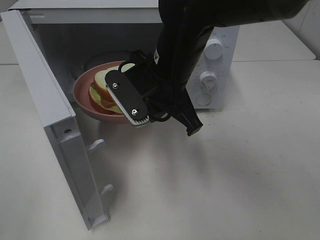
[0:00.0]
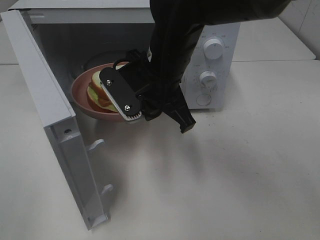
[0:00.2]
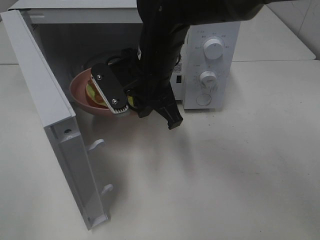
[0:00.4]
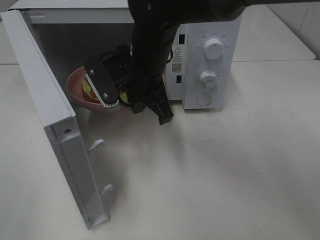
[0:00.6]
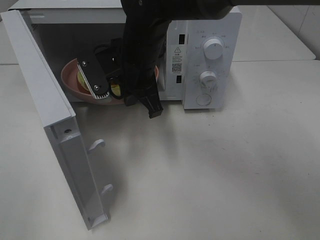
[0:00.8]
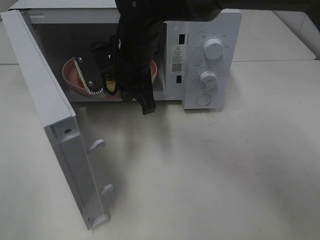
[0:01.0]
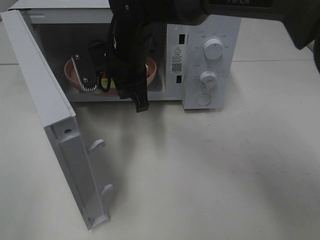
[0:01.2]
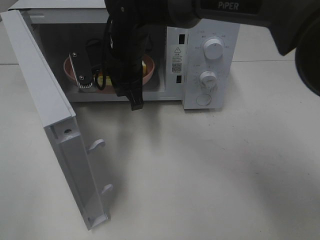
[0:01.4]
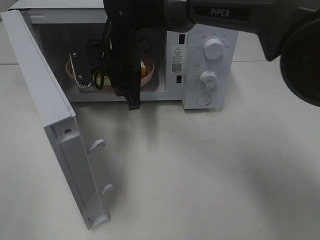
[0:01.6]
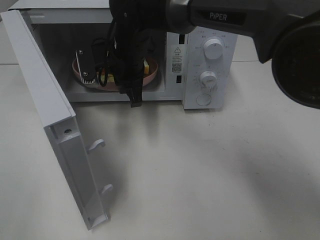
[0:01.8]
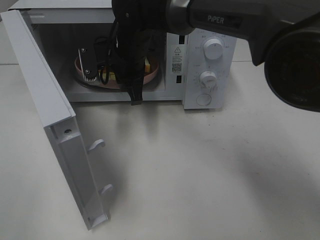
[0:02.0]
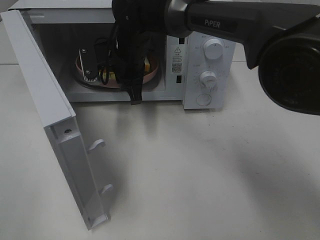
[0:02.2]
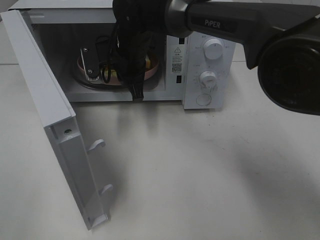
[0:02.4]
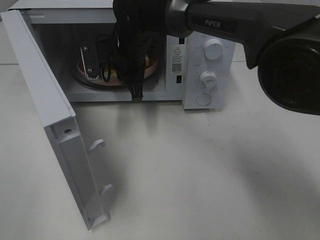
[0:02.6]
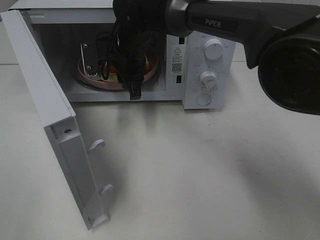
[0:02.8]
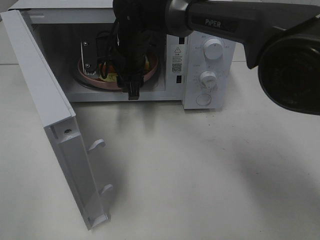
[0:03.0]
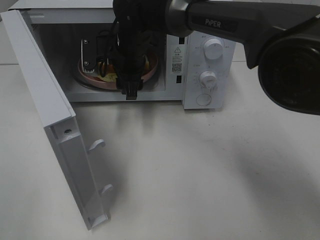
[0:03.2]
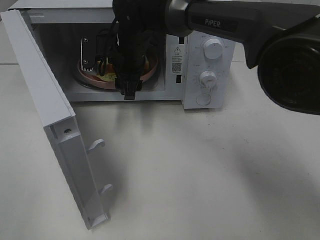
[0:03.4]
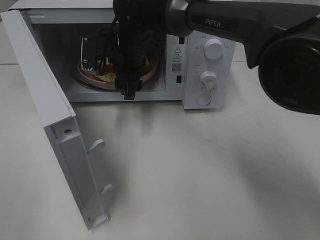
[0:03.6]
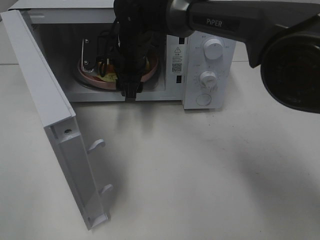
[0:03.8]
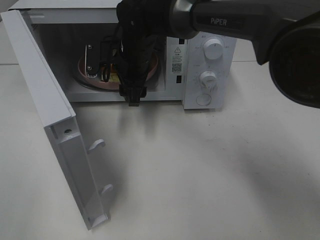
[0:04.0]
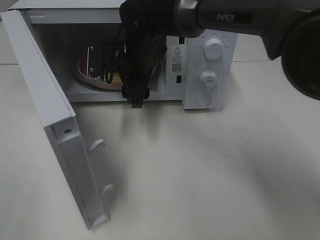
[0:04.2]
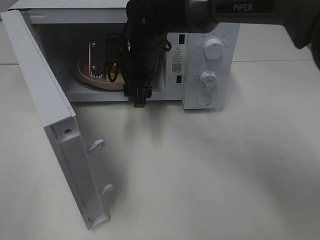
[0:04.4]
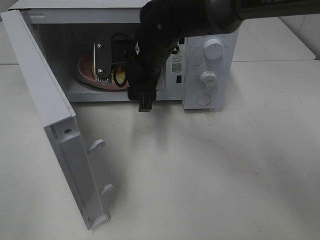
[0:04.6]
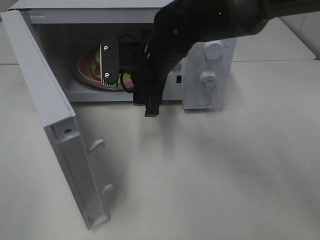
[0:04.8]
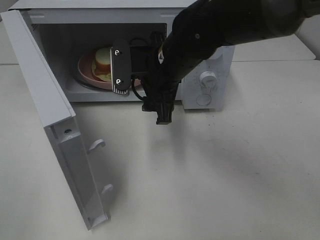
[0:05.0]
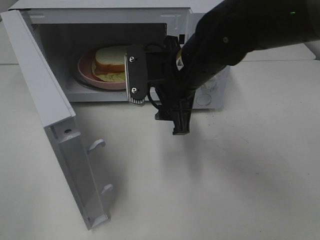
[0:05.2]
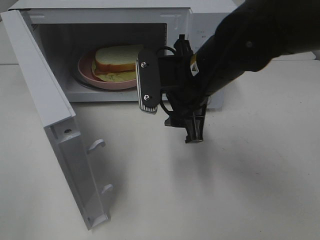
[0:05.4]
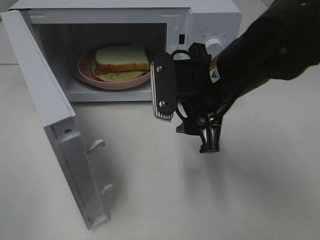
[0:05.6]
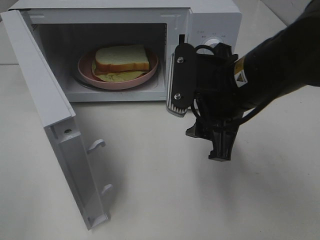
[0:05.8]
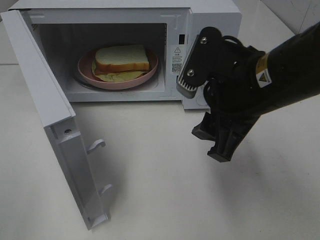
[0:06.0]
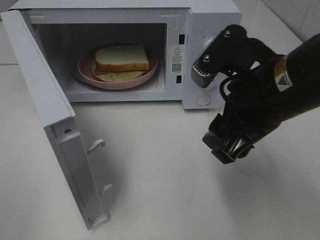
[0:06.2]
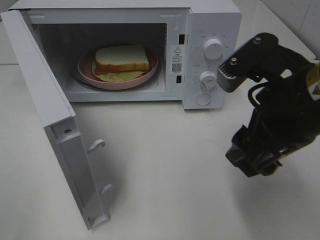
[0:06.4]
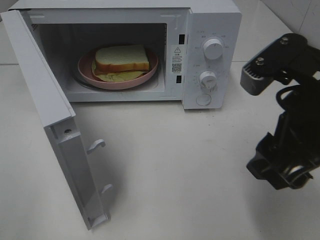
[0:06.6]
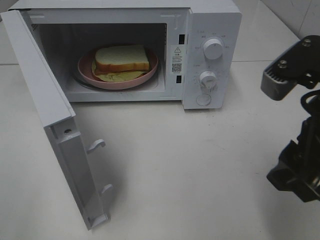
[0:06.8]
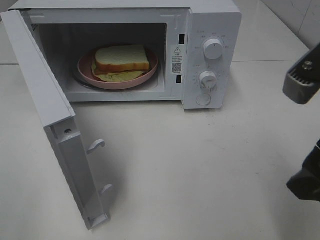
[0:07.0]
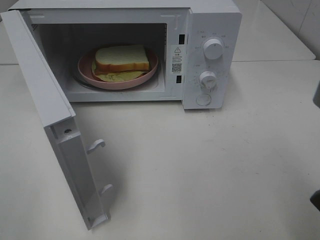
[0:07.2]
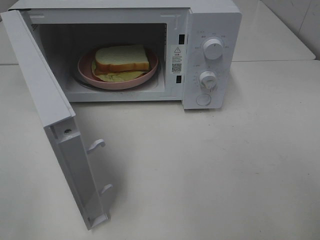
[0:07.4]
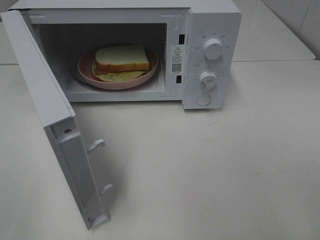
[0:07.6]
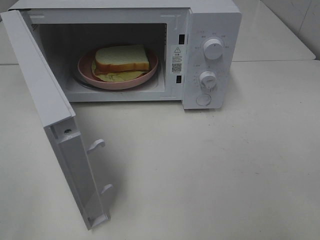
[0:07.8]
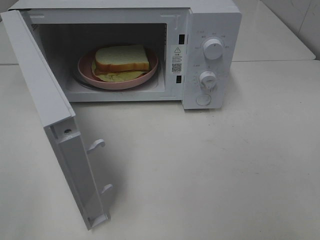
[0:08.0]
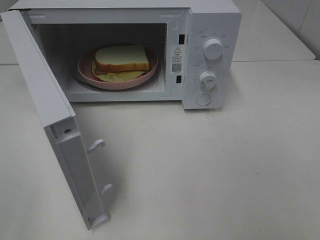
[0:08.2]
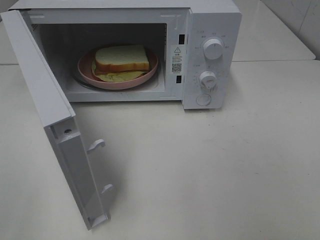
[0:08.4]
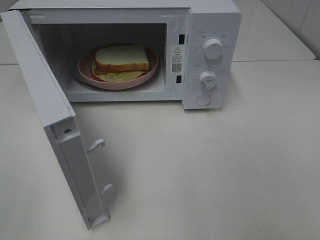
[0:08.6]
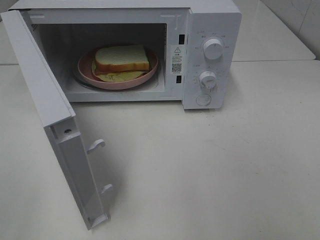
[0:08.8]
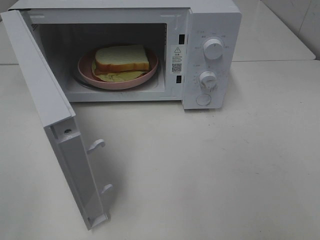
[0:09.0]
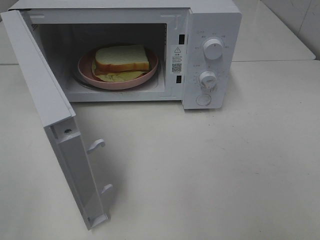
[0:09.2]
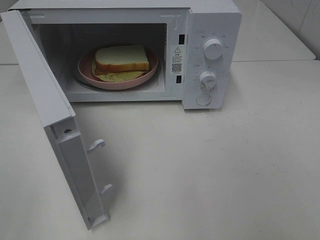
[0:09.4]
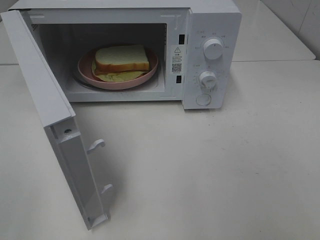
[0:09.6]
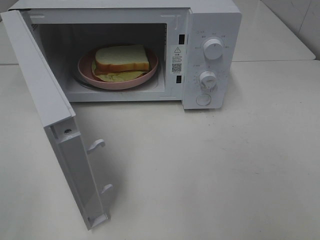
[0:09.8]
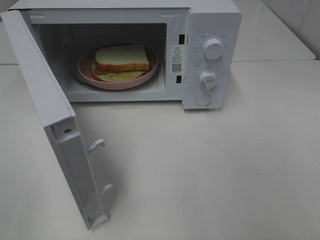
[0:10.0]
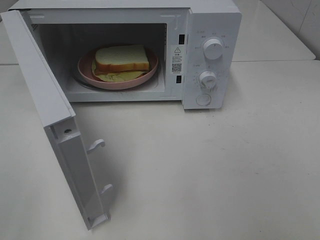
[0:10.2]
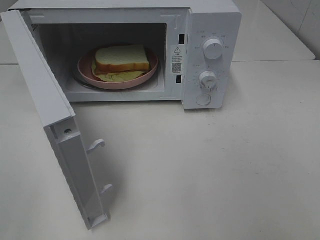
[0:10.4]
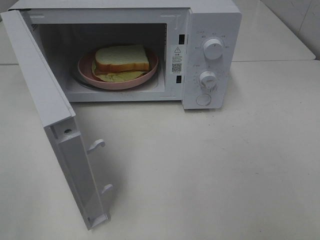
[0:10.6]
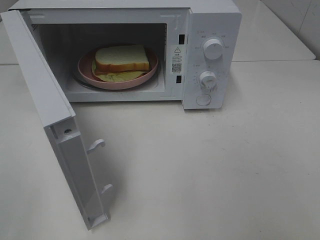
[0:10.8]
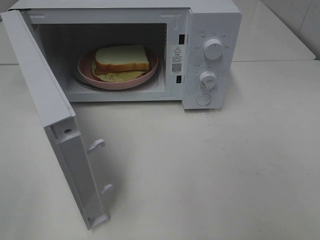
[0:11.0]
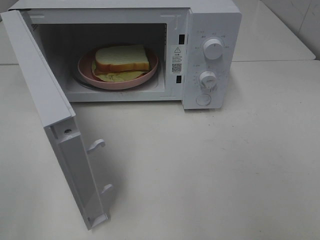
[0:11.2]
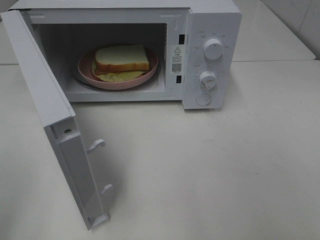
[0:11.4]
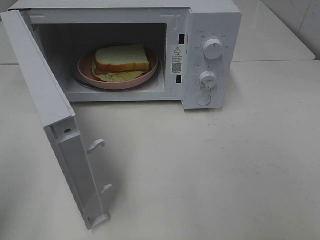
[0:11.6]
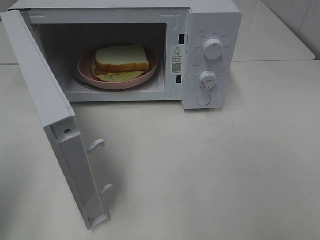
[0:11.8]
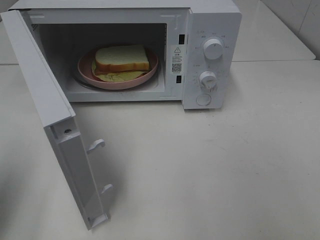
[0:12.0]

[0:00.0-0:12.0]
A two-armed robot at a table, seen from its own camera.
Task of the whole recording: Heat Sandwich.
Step, 0:00.0 to 0:03.8: Right hand: place the plate in the microwave.
0:00.0 to 0:01.6: The right gripper shifts roughly 10 cm forward and to the left.
0:01.6 to 0:03.0: The right gripper opens its fingers.
0:03.0 to 0:04.4: There are only small adjustments of the grippers.
0:04.4 to 0:06.0: The right gripper moves backward and to the right, approximately 25 cm.
0:06.0 to 0:07.6: The right gripper moves backward and to the right, some 20 cm.
0:09.0 to 0:10.4: Both grippers stay put.
0:10.4 to 0:12.0: The left gripper travels forward by some 15 cm, and closes up.

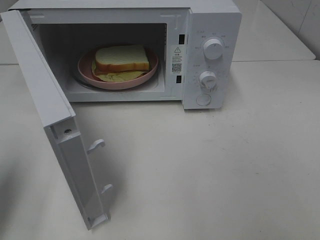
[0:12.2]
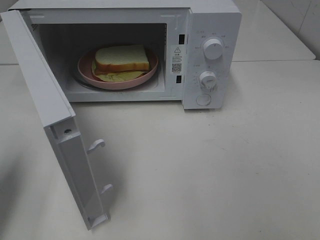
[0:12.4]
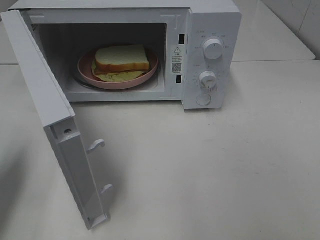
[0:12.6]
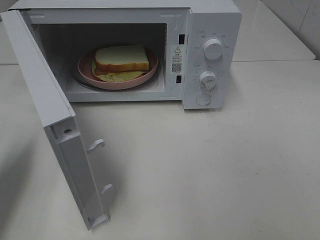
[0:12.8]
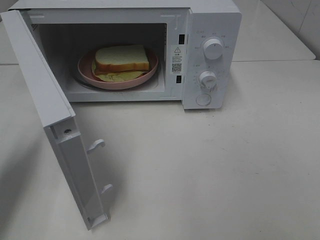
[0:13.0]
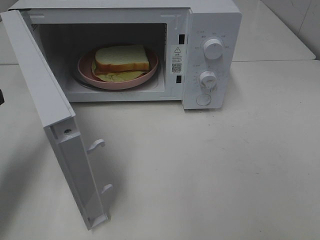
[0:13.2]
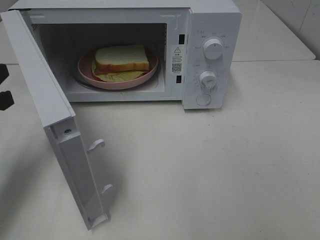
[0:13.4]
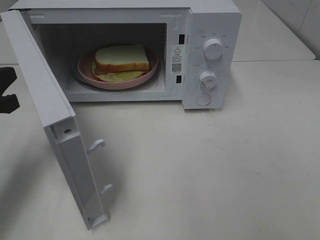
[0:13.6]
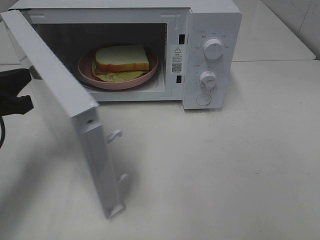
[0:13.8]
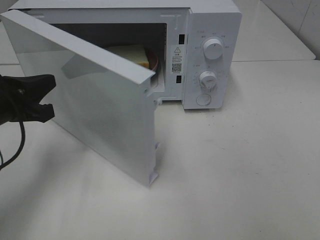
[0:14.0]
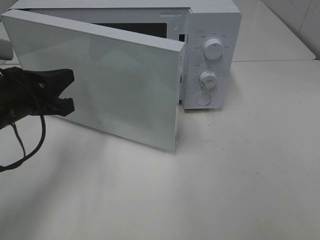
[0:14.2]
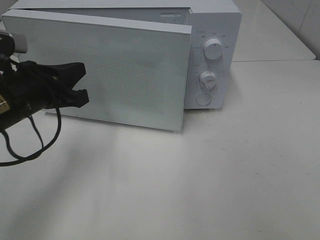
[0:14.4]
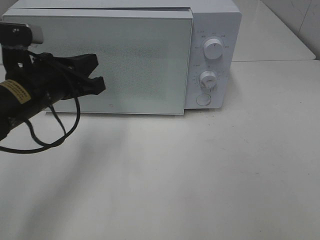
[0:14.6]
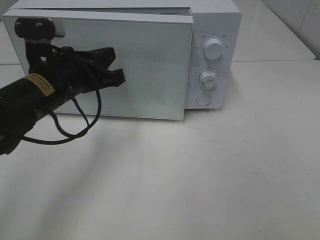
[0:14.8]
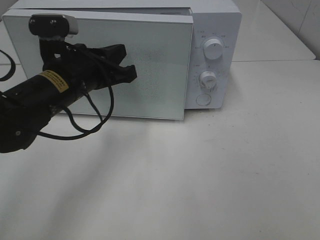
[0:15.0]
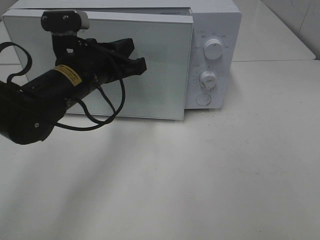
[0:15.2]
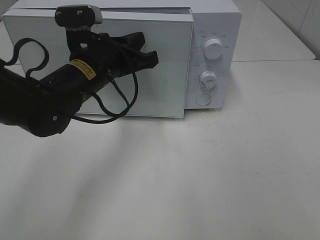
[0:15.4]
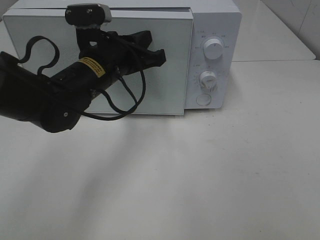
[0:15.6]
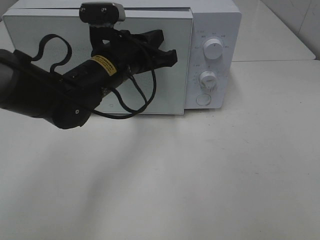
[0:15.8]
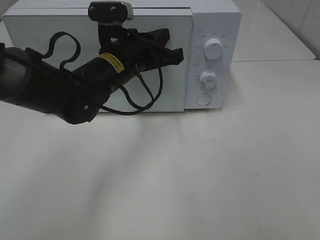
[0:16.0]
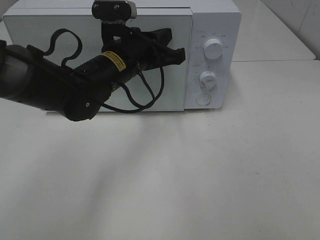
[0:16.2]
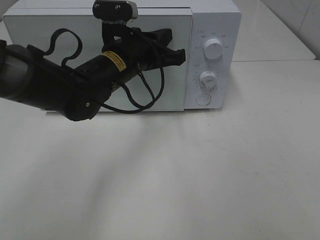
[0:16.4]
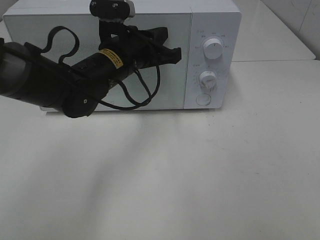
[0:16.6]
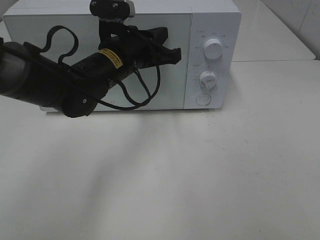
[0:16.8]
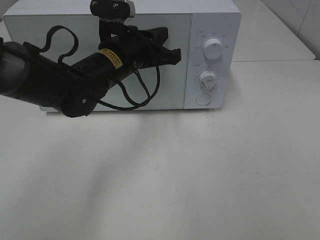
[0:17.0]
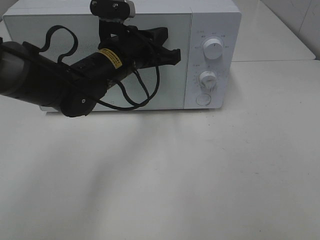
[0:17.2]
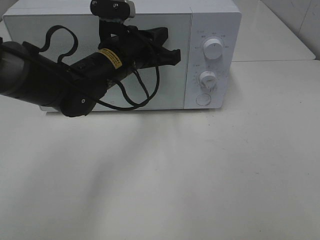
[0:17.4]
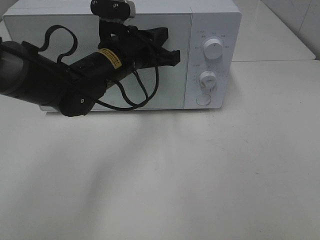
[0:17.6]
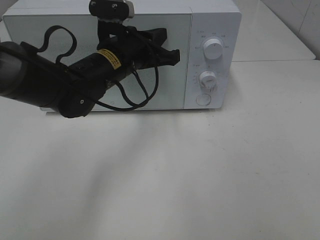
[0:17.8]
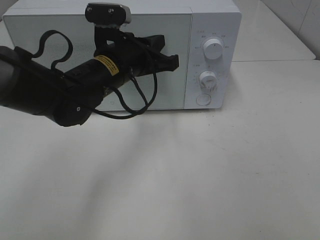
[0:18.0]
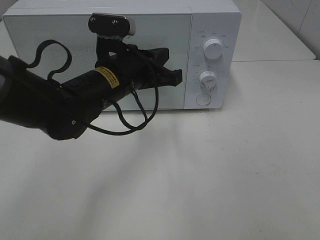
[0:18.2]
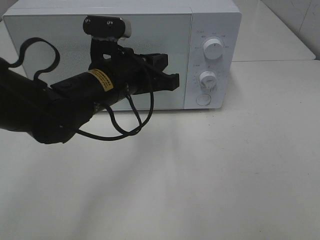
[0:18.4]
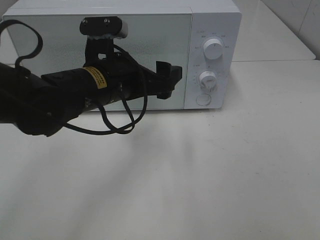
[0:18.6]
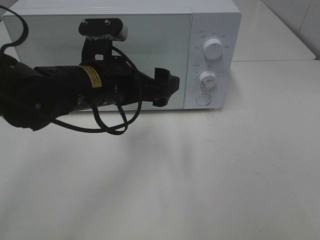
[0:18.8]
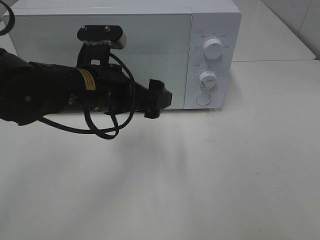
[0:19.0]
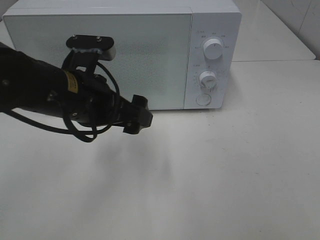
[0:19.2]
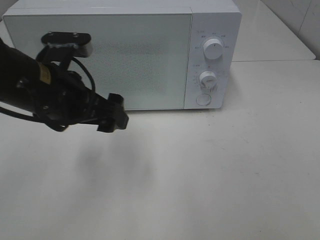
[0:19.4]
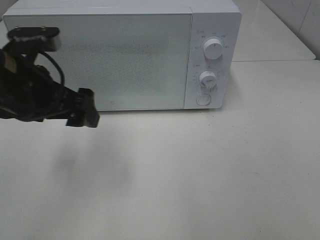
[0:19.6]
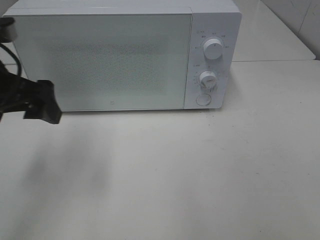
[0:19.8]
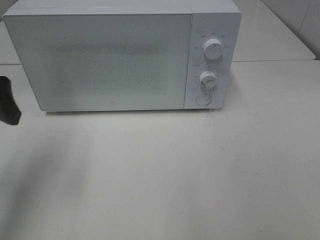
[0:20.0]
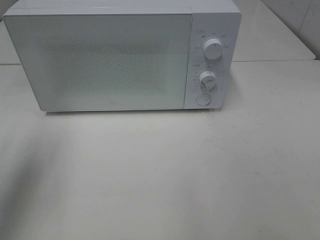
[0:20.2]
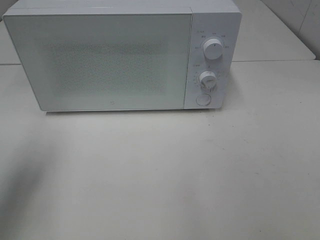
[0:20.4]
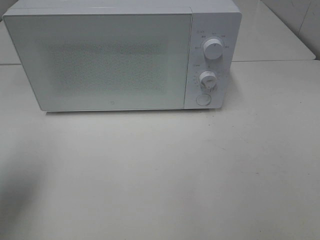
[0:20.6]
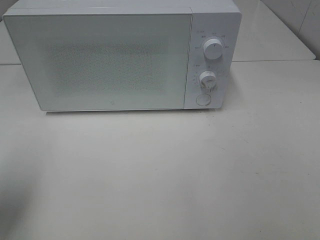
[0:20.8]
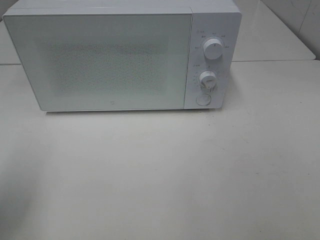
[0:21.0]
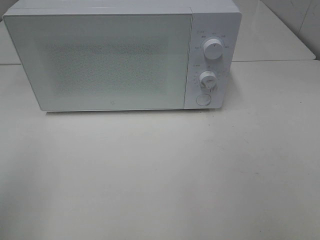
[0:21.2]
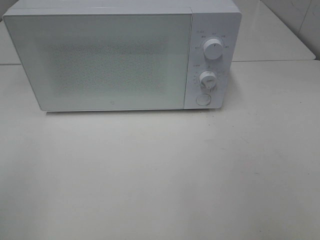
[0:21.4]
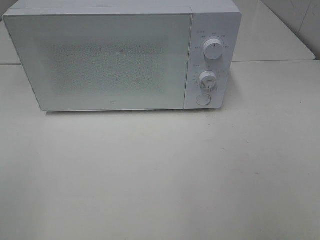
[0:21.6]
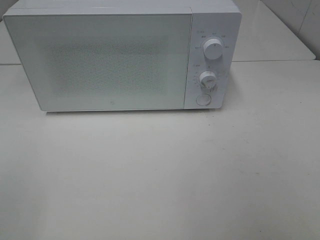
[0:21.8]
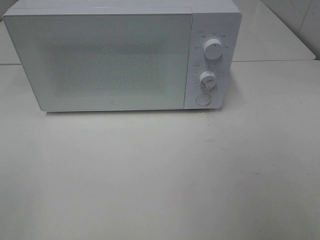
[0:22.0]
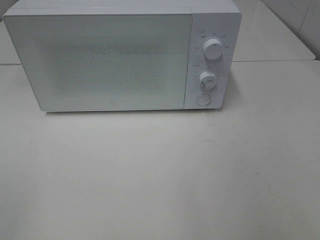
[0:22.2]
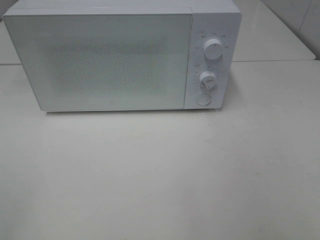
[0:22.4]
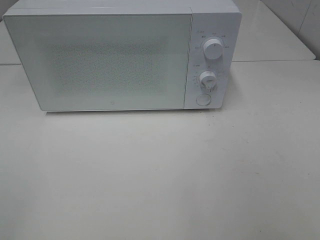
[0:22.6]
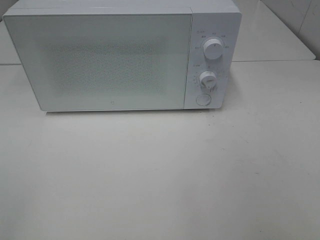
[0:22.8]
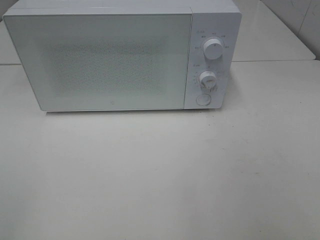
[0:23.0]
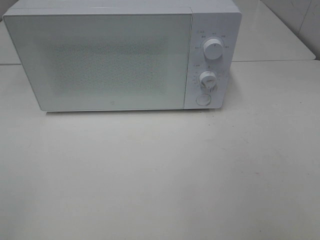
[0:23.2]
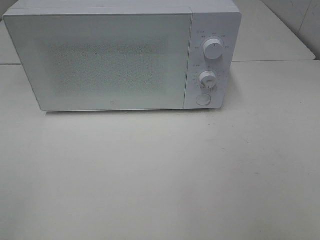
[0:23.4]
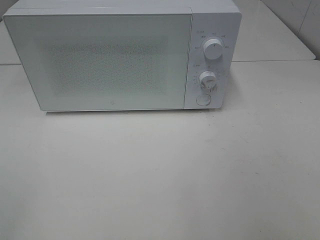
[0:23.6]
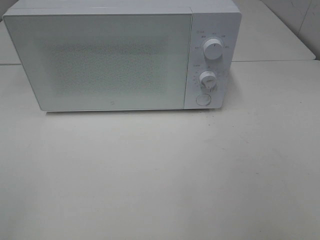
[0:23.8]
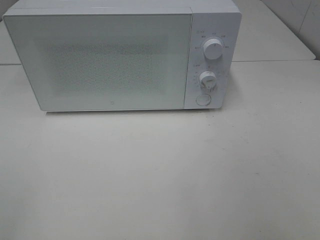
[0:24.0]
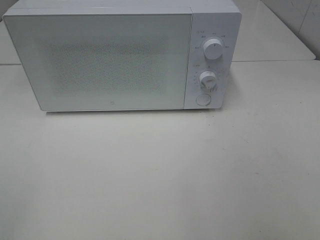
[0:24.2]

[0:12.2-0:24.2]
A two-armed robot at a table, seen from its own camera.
Task of the whole recording: Heat Sandwich.
Step, 0:12.2 to 0:18.4: Left hand: close the microwave door.
0:12.2 to 0:13.8: The left gripper goes some 10 cm forward, downward and to the right.
0:13.8 to 0:15.2: The left gripper moves to the right and forward, some 15 cm.
0:15.2 to 0:16.6: The left gripper moves approximately 5 cm.
0:16.6 to 0:18.2: There are only small adjustments of the grippers.
0:18.2 to 0:19.8: The left gripper travels to the left and upward by about 20 cm, and opens.
0:19.8 to 0:21.2: The left gripper is displaced backward and to the left by approximately 20 cm.
0:22.6 to 0:24.2: Both grippers stay about where they are.
